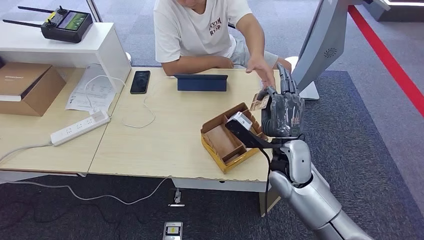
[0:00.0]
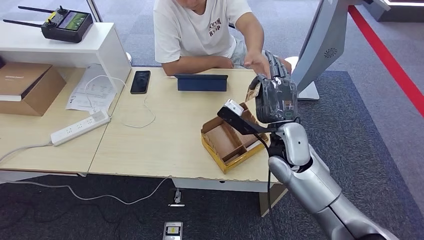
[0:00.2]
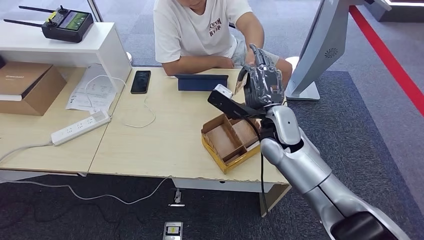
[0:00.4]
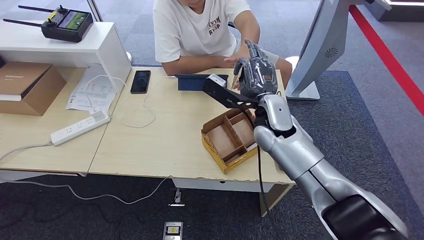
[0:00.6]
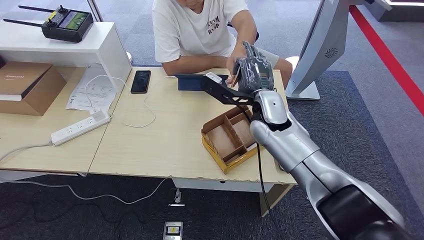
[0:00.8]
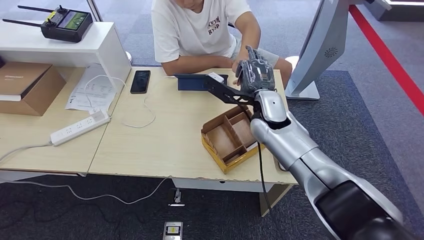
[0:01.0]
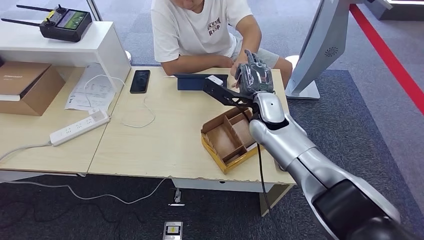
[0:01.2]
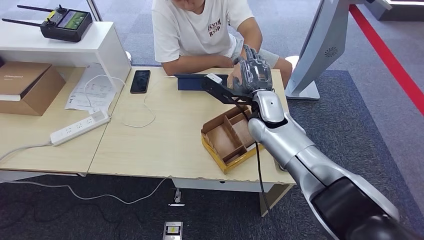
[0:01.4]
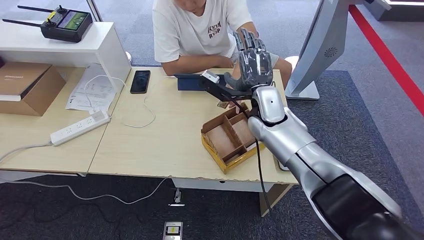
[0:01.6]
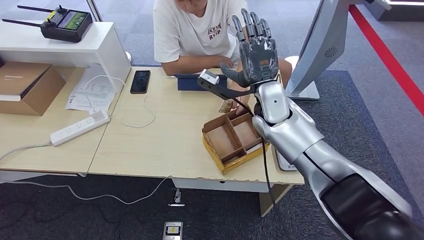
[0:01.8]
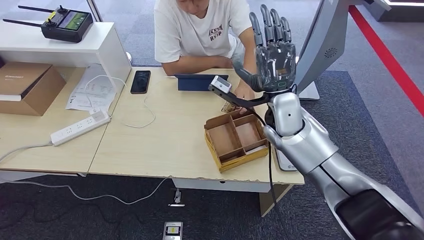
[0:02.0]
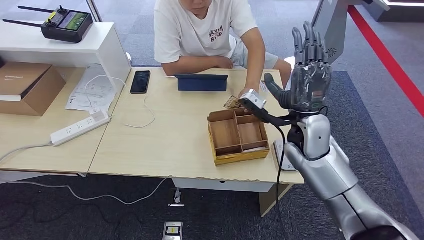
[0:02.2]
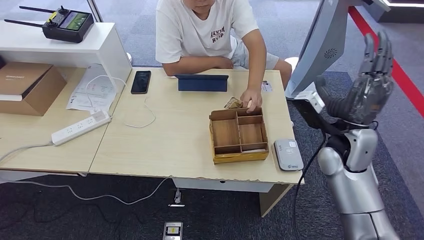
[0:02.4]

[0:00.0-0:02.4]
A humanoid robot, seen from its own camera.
Step, 0.0 to 2.4 s: Hand the room key to the person.
0.0 to 1.2 s: The right hand travels forward by approximately 10 cm.

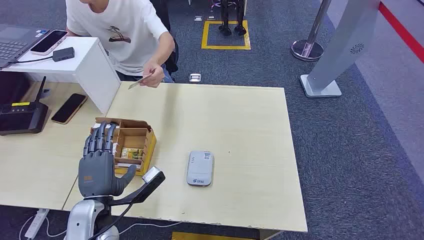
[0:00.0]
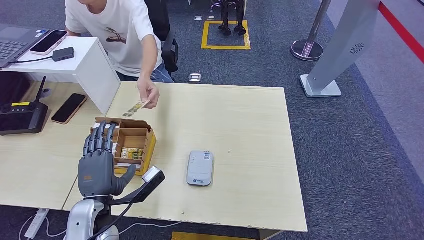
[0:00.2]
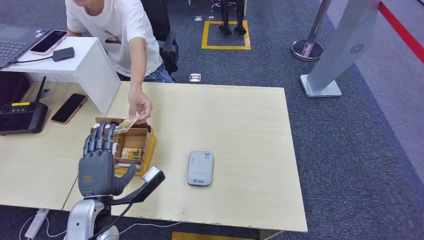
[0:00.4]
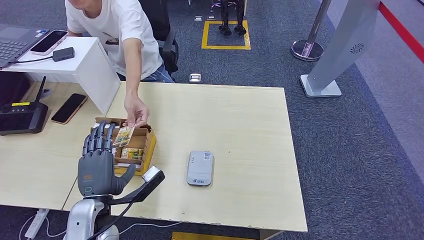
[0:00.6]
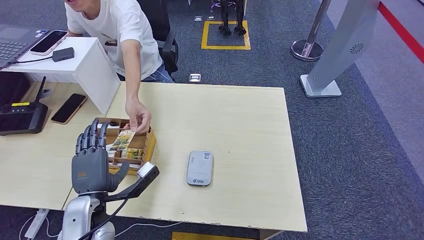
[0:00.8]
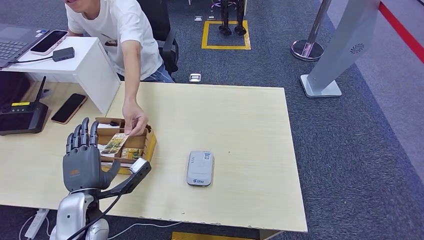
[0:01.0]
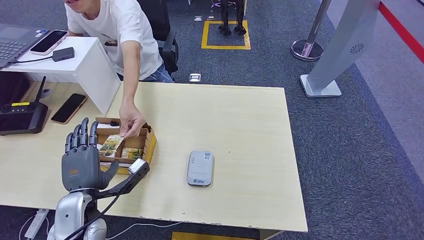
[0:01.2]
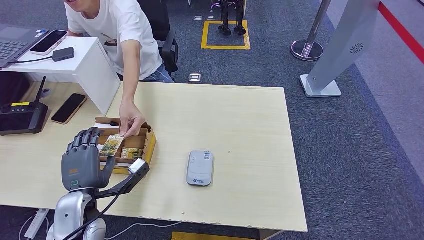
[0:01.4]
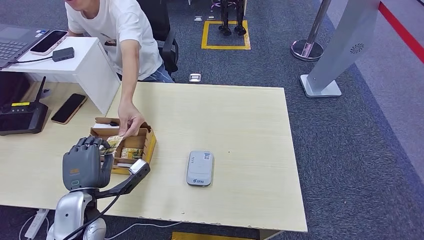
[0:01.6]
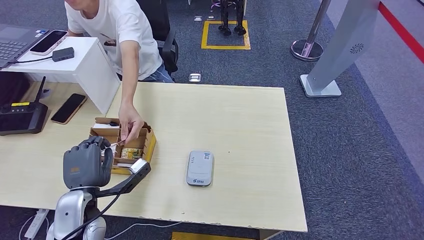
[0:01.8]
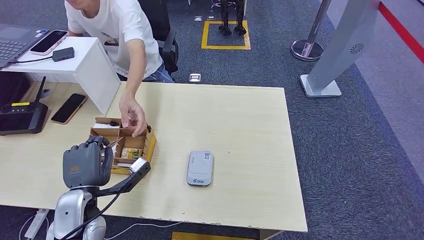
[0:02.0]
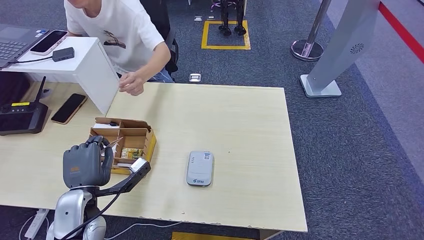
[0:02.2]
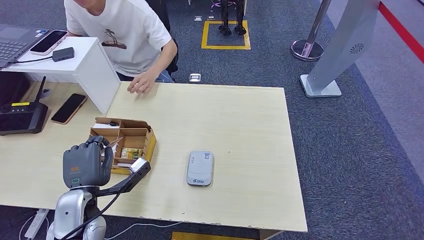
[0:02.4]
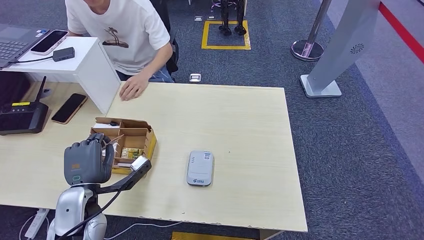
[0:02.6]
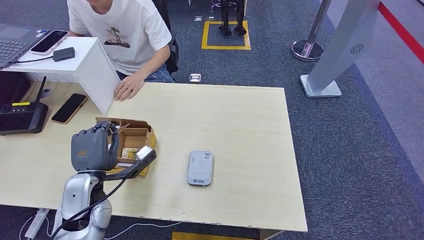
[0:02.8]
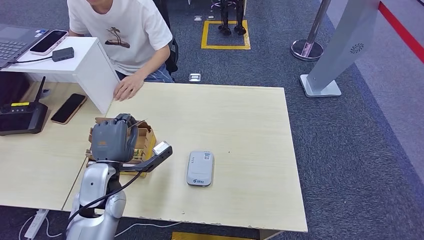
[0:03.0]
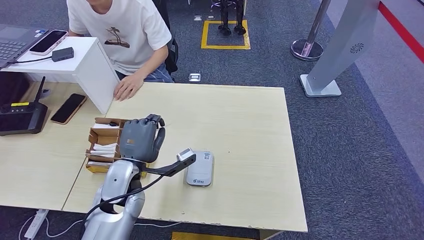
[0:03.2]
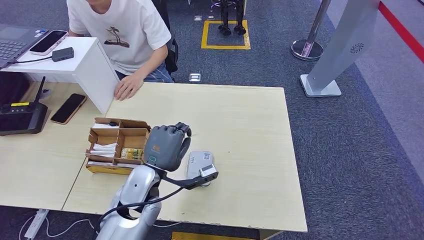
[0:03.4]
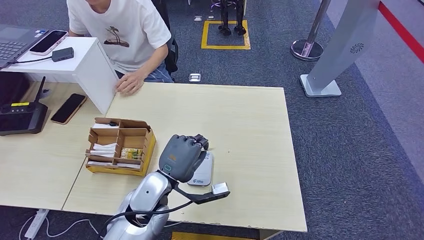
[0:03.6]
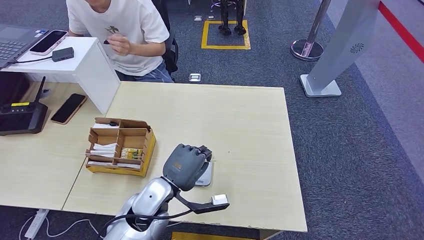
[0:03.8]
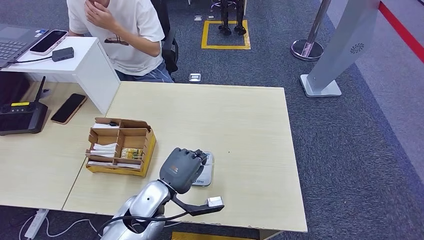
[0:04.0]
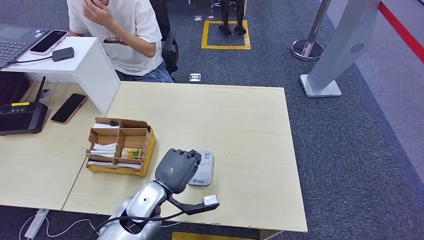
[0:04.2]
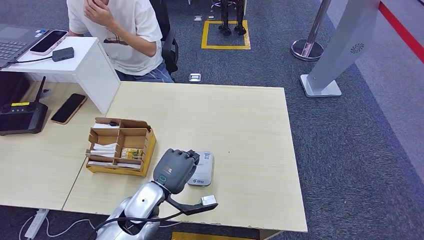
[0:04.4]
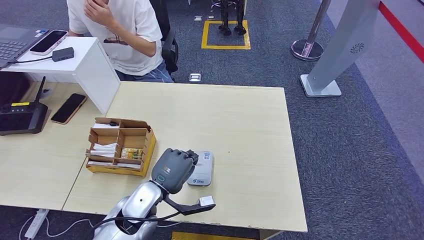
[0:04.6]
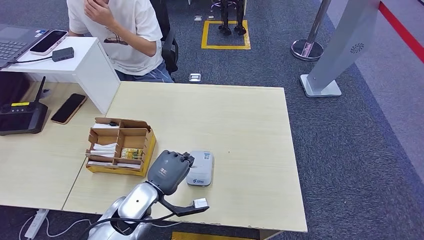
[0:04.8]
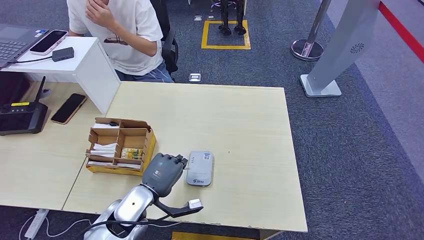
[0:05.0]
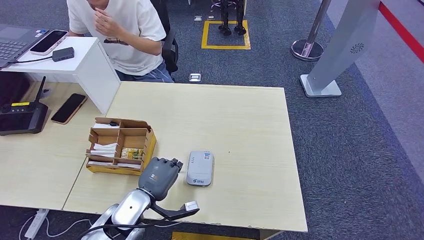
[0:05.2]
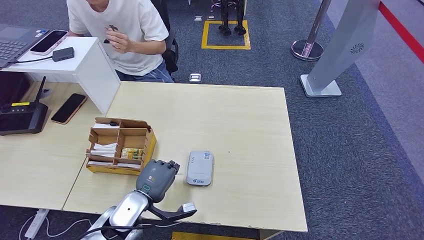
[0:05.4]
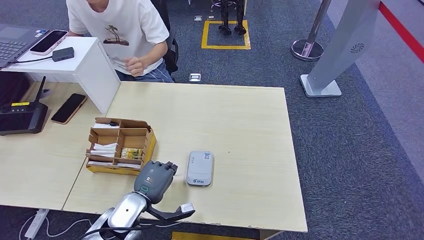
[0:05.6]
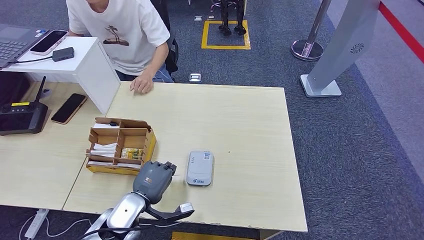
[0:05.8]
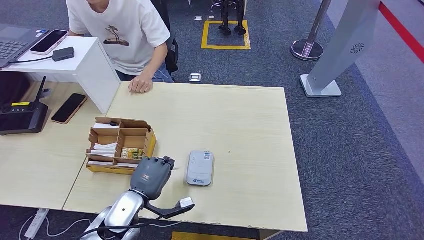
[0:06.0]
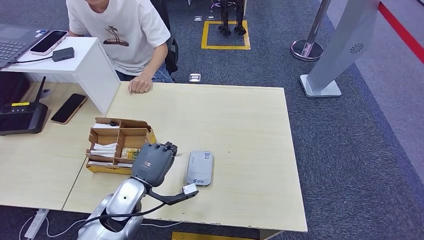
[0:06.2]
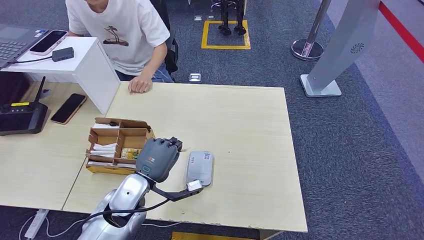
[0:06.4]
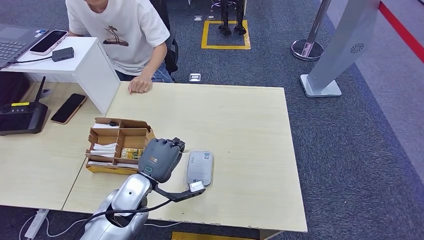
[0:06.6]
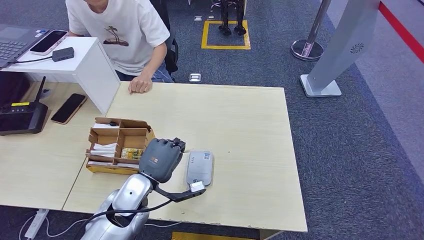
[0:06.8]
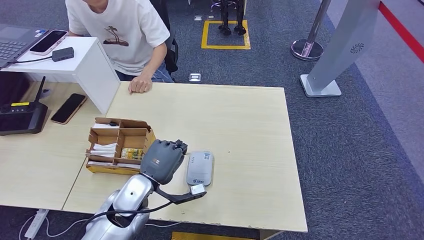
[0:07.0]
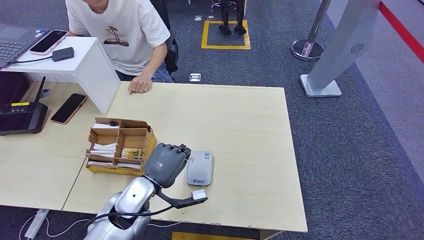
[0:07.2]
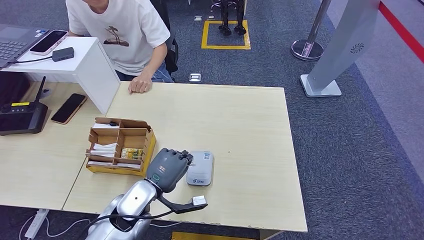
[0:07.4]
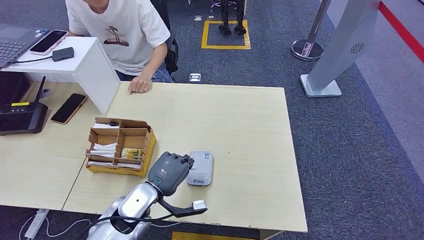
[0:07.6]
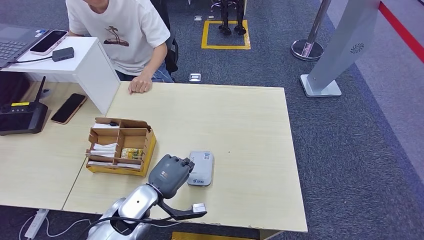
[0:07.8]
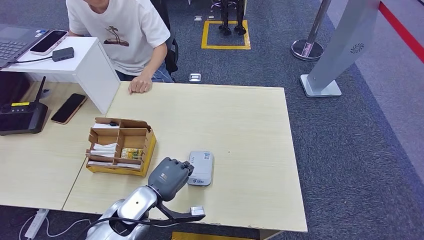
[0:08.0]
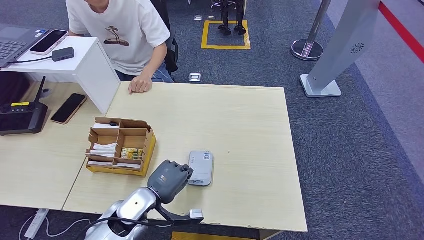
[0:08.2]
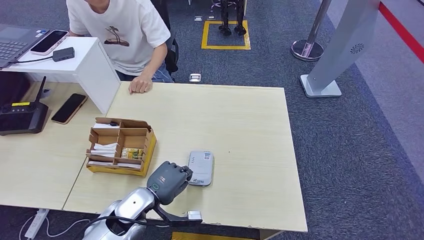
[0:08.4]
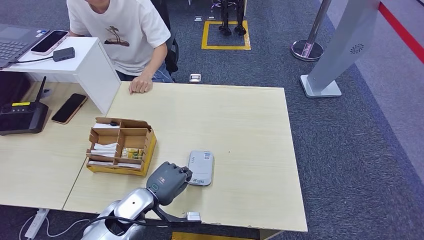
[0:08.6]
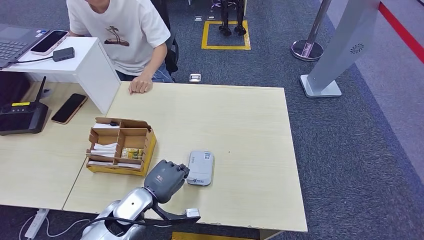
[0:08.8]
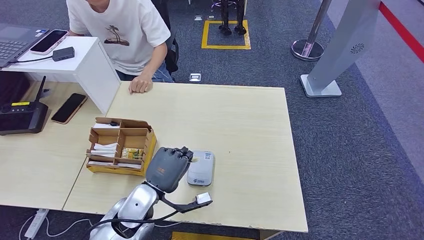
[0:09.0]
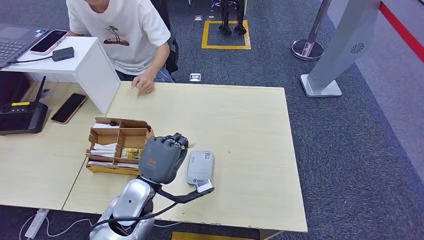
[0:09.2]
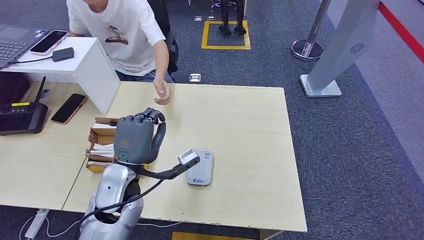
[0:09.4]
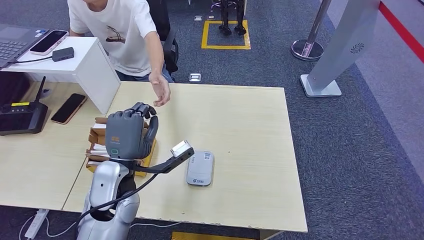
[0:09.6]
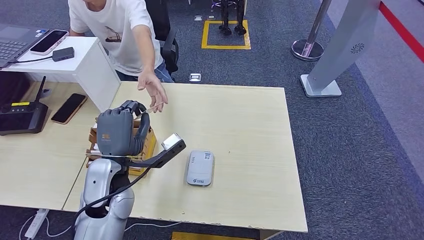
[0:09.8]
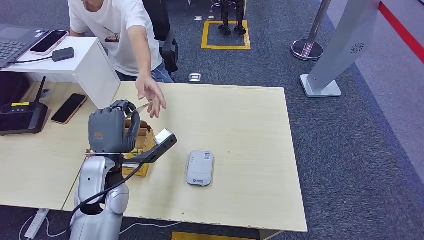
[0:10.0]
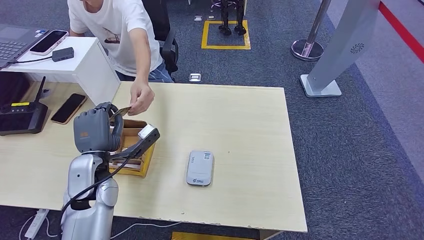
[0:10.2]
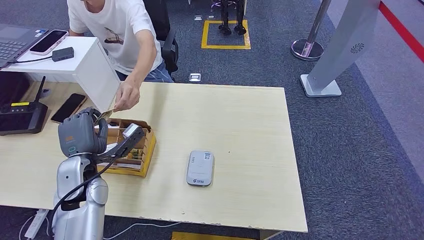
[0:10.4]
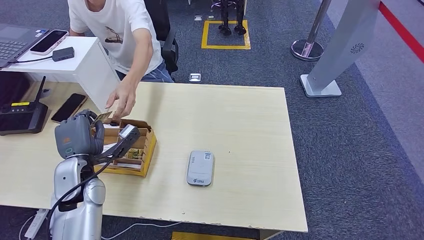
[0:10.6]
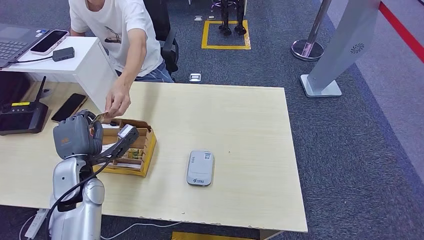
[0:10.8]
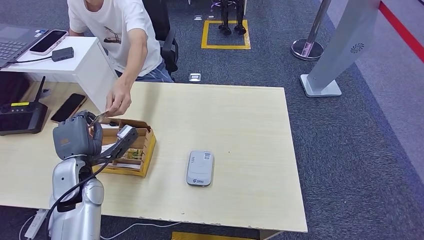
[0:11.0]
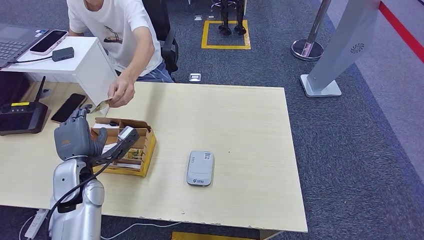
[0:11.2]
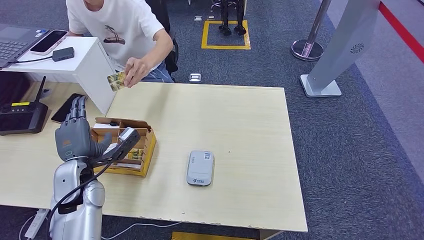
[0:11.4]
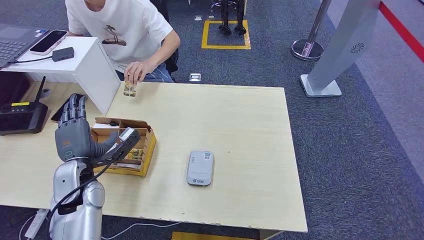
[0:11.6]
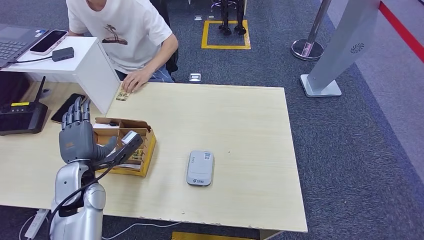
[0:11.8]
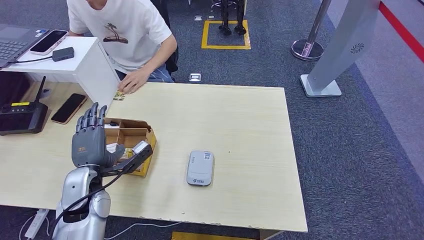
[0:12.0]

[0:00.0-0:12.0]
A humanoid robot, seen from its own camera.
Step, 0.0 to 1.8 s: Take the ID card from the person's hand.
Step, 2.0 to 8.2 s: Place the ID card on the card reader.
Step, 8.4 to 11.2 s: Hand the ID card to the person.
1.6 to 3.0 s: The left hand heads forward, covering roughly 5 cm.
3.0 to 4.4 s: The left hand shifts some 10 cm to the right and downward.
4.4 to 6.0 s: The left hand moves to the left, some 5 cm.
6.0 to 9.0 s: There are only small adjustments of the hands.
9.0 to 10.4 s: The left hand is displaced to the left, upward and forward by roughly 15 cm.
10.4 to 12.0 s: The hands make only small movements.

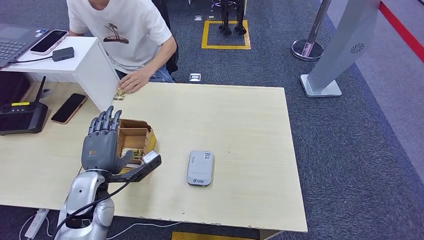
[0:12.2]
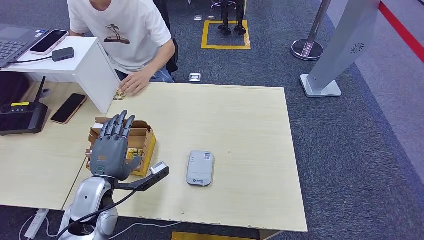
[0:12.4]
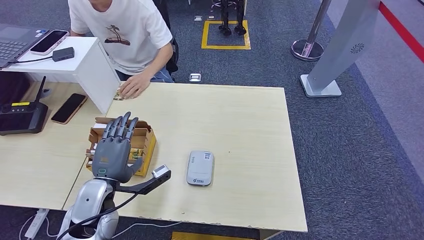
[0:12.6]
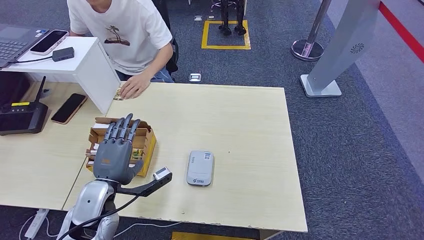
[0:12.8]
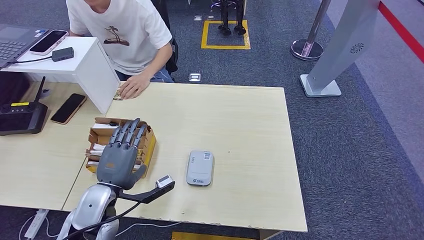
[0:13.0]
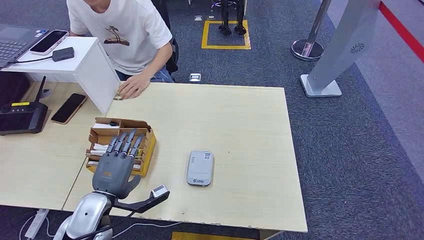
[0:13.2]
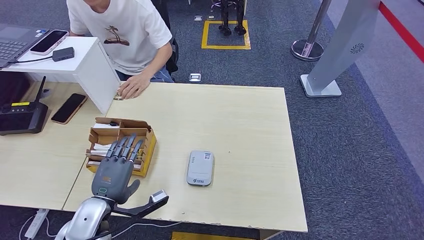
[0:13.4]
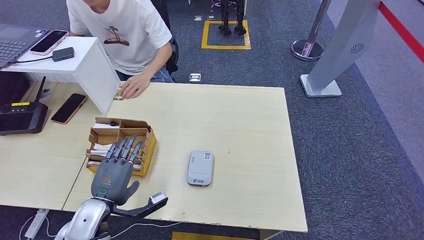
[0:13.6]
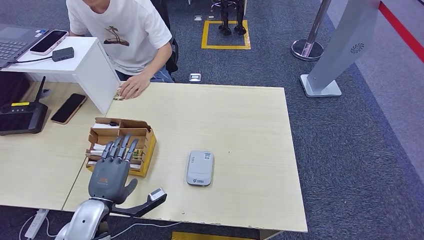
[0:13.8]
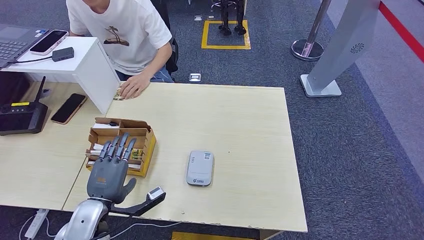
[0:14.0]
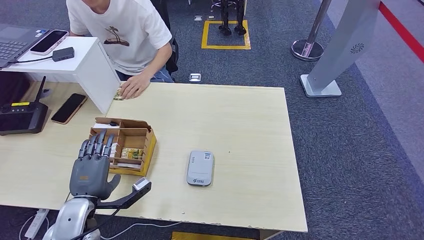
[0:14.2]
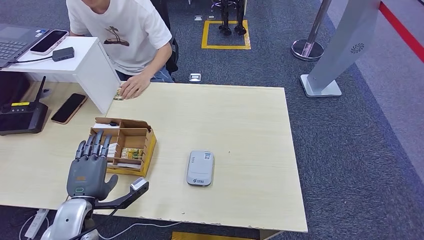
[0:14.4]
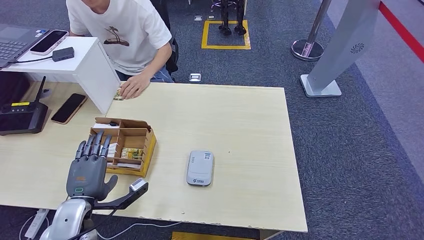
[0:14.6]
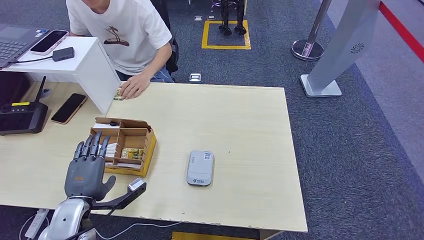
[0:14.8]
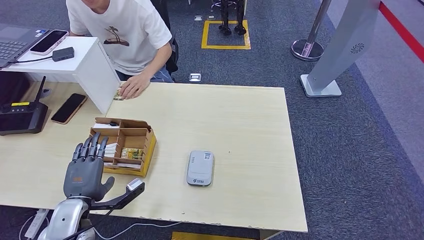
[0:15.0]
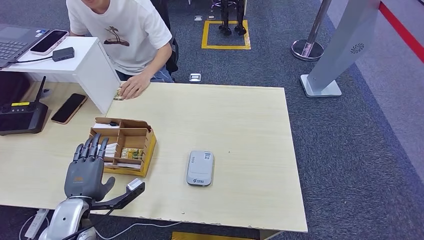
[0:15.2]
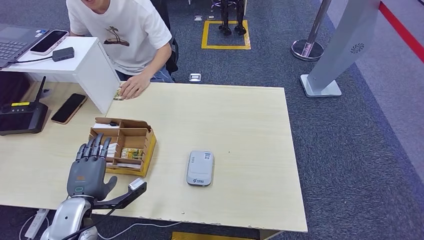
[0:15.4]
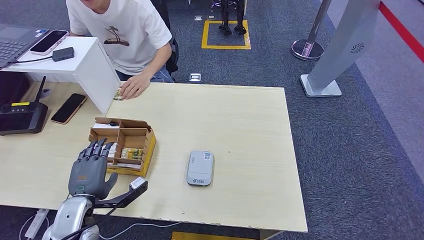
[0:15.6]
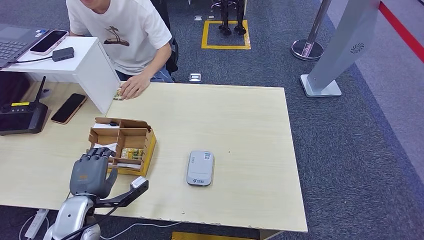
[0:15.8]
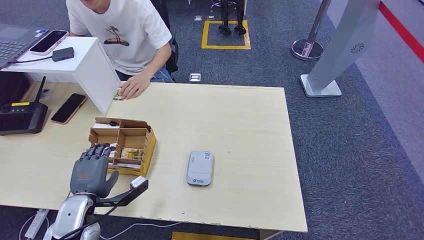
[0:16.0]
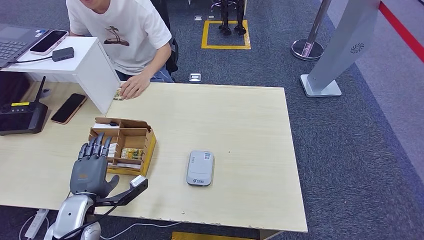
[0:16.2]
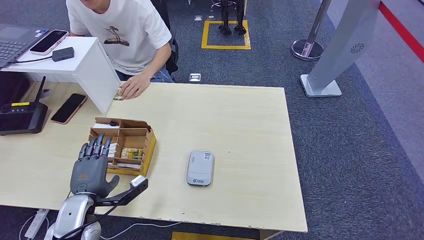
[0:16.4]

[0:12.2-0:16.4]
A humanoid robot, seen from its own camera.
12.2 to 13.6 s: The left hand travels backward by approximately 5 cm.
13.6 to 16.4 s: The hands make only small movements.
